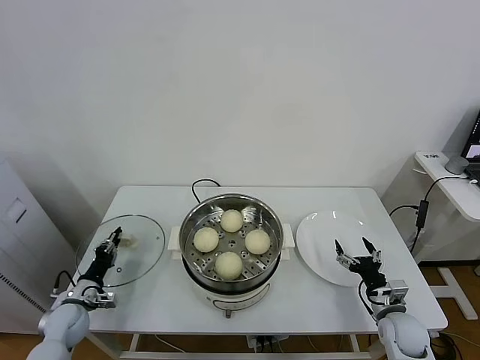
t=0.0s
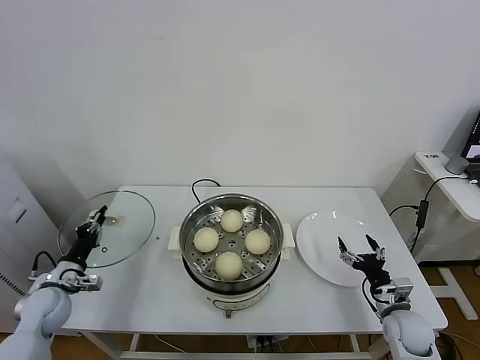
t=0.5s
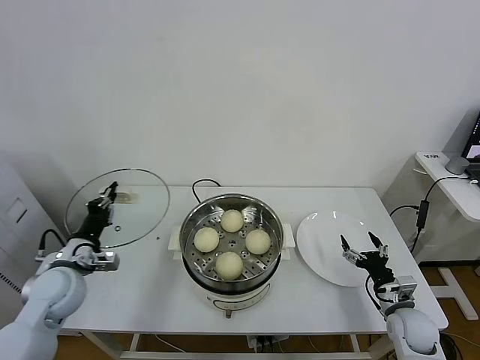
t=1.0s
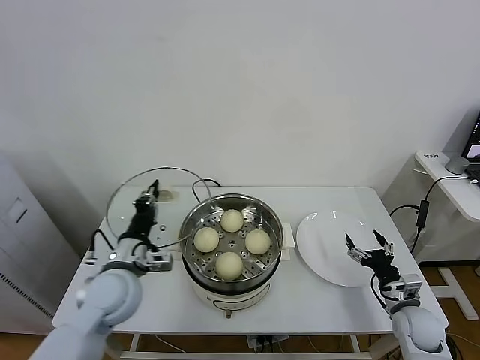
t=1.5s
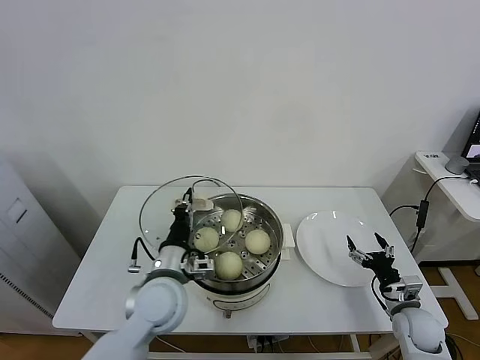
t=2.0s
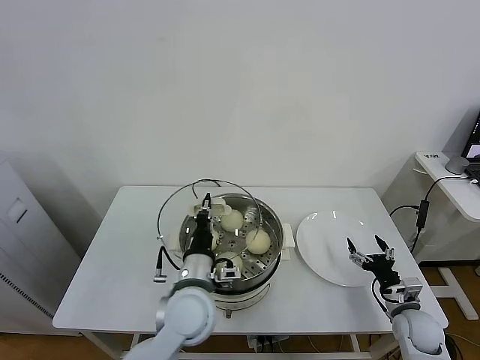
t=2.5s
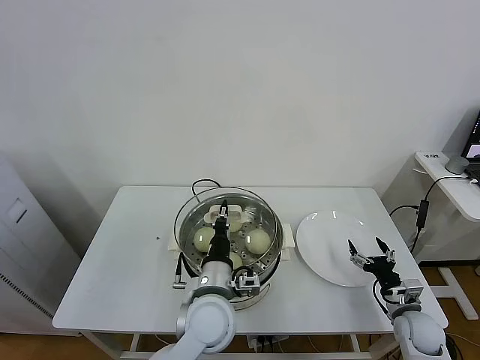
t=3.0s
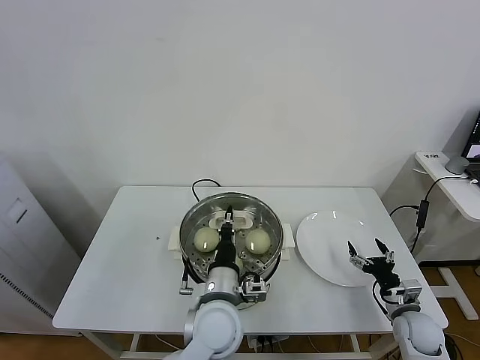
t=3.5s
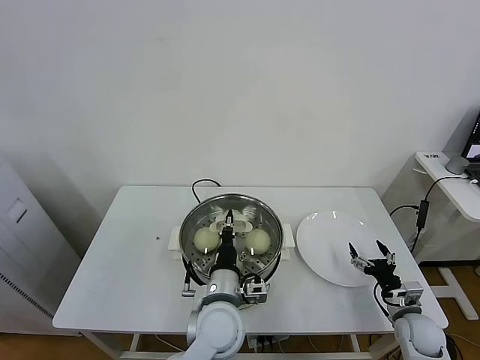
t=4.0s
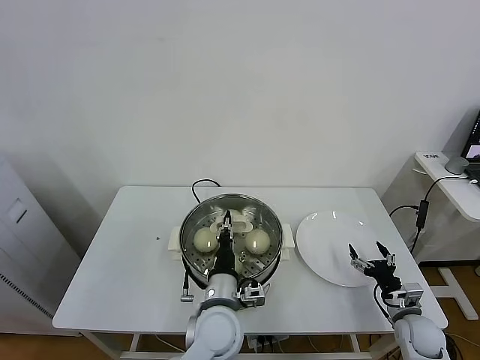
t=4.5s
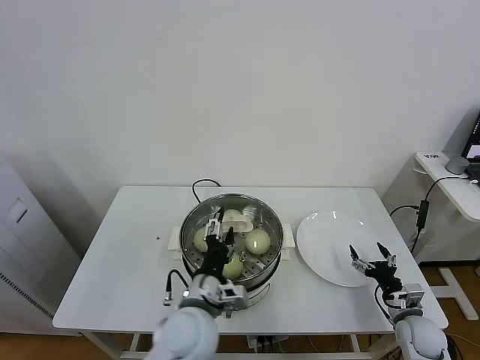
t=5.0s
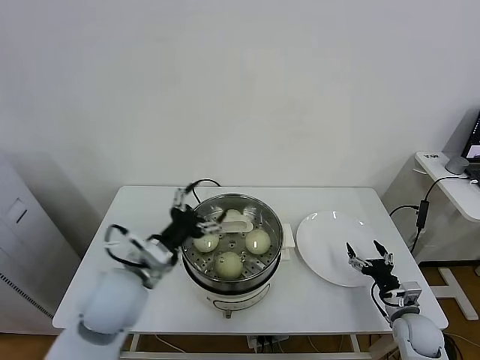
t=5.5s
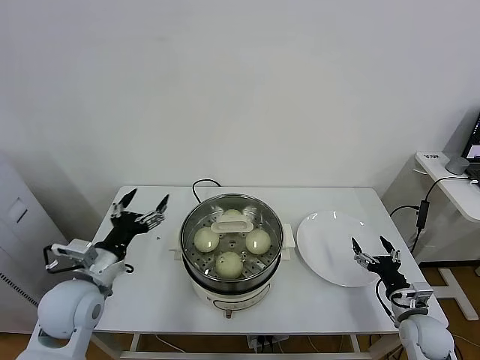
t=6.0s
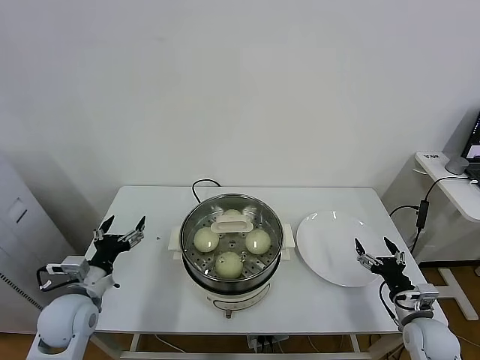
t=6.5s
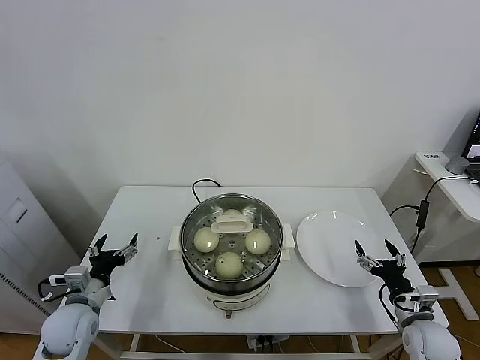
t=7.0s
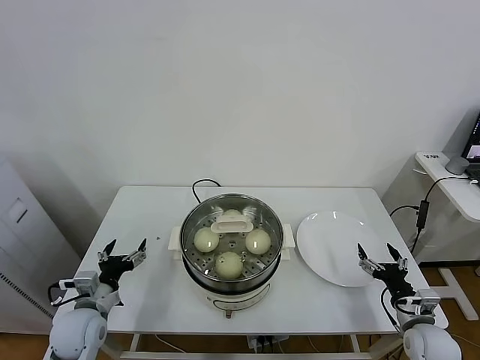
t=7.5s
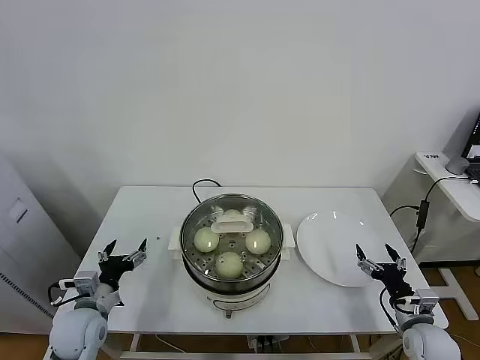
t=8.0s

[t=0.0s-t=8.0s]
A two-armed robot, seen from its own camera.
Task of the whole recording: take steamed baozi put them in steamer.
Step, t=0.5s to t=5.0s: Place the pot lid on the steamer with left gripper.
t=0.0s to t=2.0s: The left gripper moves to the right and upward, approximately 35 cm.
t=2.0s to t=4.0s: The left gripper moves to the right, roughly 10 cm.
t=4.0s to t=6.0s: The left gripper is displaced to the left by roughly 25 cm, and opens.
t=6.0s to t=8.0s: The left gripper travels downward by some 10 cm.

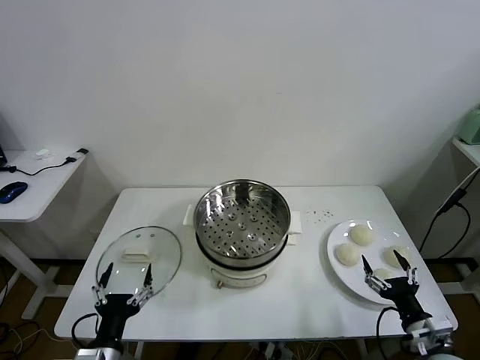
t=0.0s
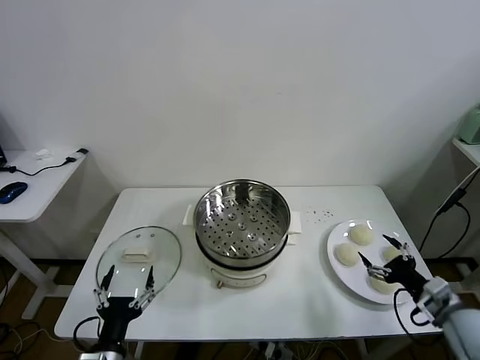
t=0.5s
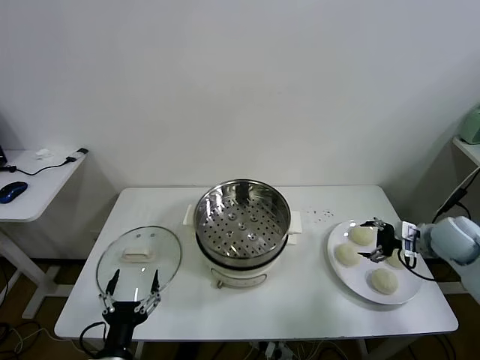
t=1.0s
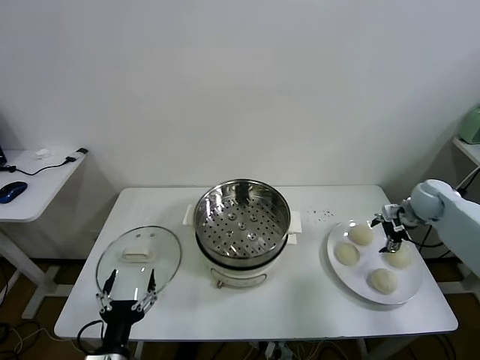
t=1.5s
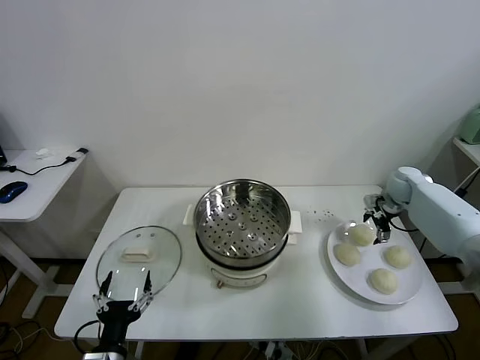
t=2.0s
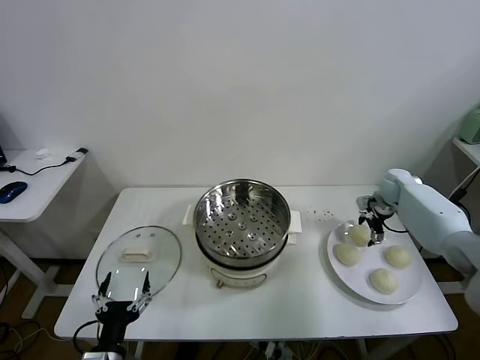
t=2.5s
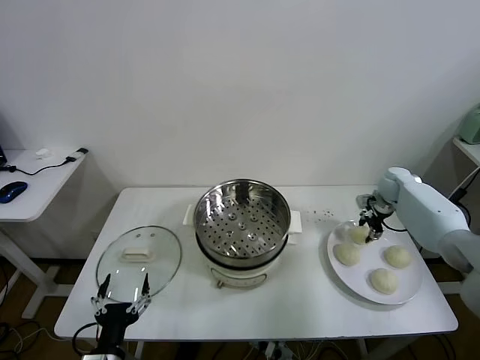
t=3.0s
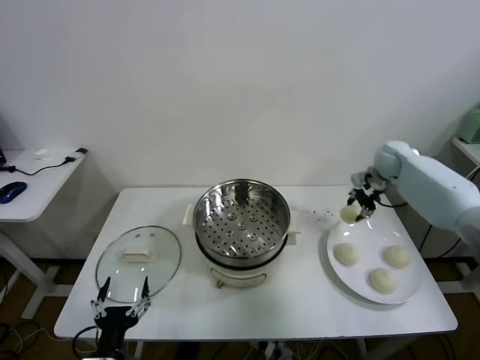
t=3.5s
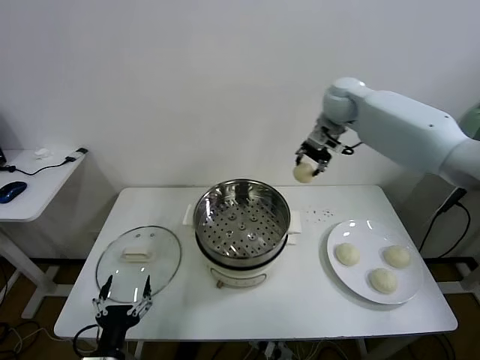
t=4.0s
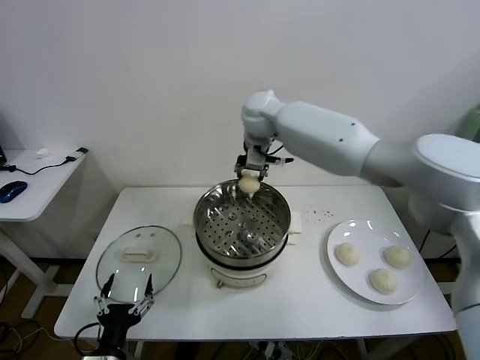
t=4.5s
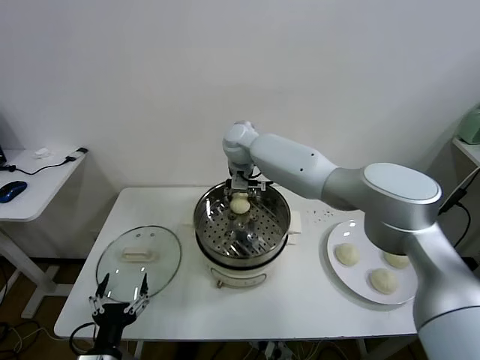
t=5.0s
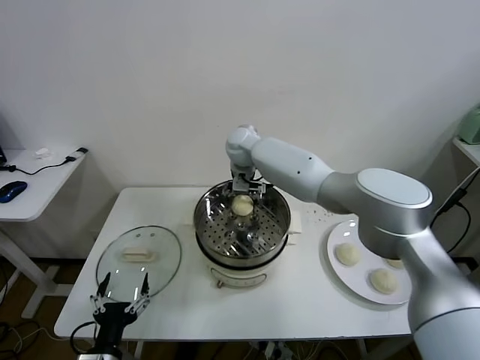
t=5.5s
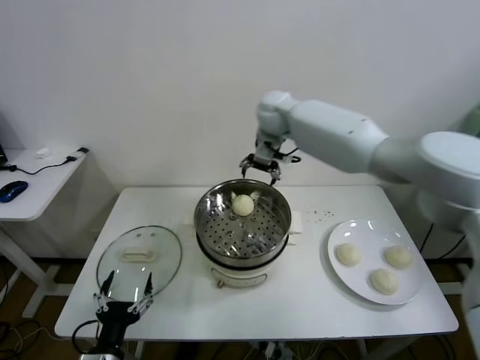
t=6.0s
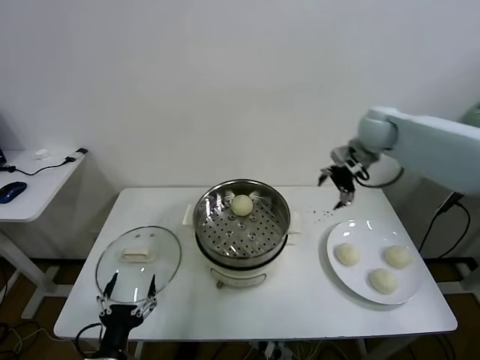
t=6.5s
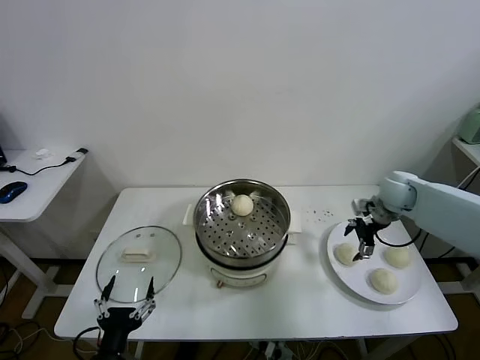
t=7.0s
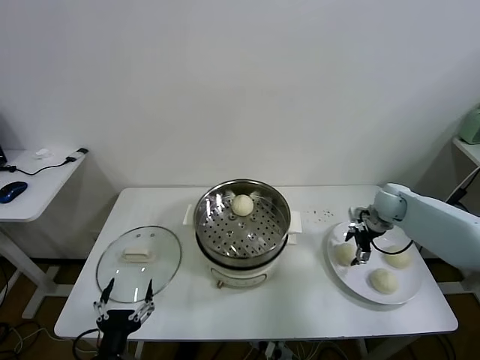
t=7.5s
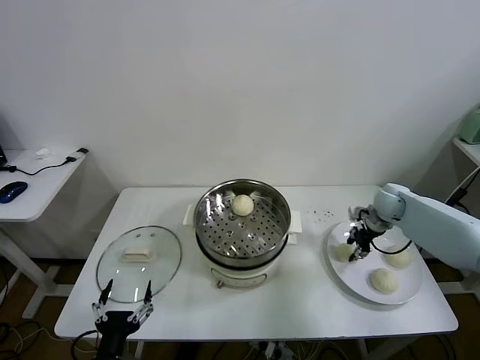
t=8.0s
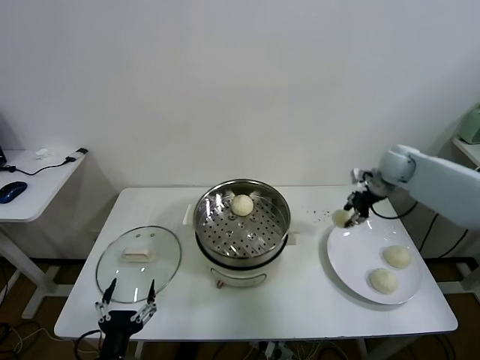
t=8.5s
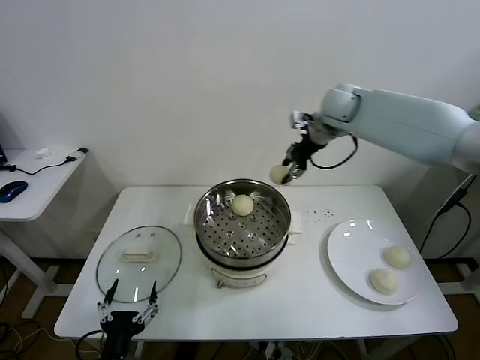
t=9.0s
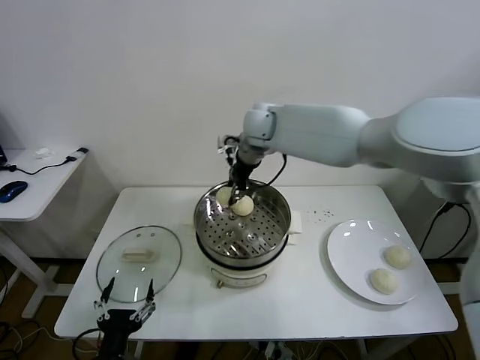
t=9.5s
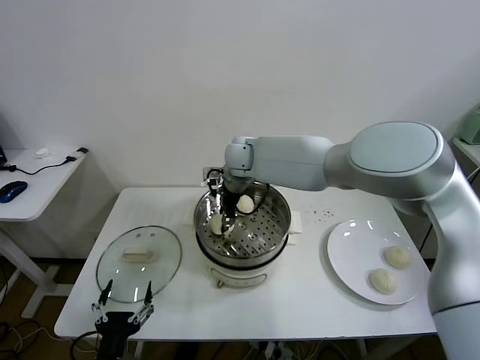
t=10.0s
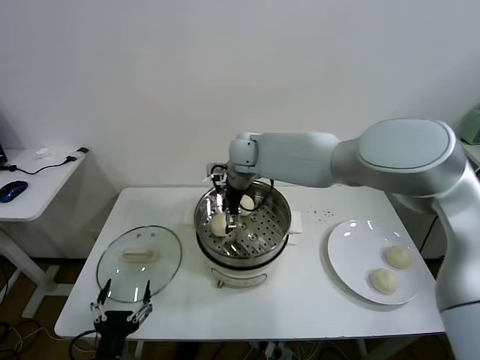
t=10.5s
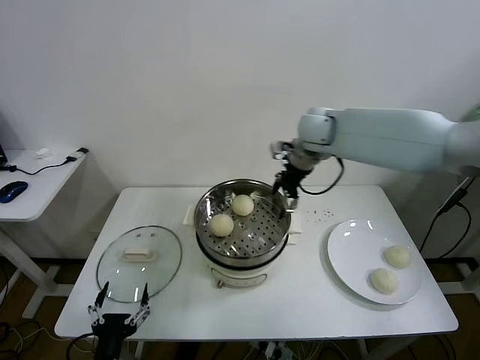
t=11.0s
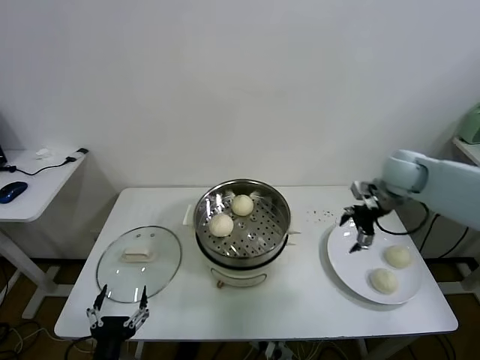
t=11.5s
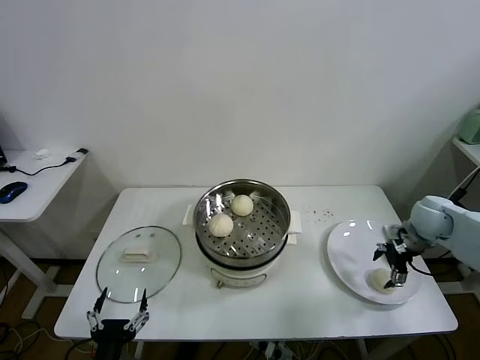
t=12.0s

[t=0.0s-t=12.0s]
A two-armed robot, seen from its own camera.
Task of the whole recording: take steamed baozi put them in steamer.
Step, t=0.0s to t=2.5s: Grasp the baozi in the plate with right gripper.
Step, t=3.0s to t=5.5s: Place the baozi on the steamer with right gripper.
Step, t=6.0s to t=7.5s: Grasp the baozi in the plate with right gripper.
Step, t=8.0s to t=10.0s: Place the baozi on the steamer with right gripper.
t=2.0s to t=4.0s: The right gripper moves to the left and upward, approximately 35 cm, and closes its fingers.
t=4.0s to t=6.0s: The right gripper reaches some 20 cm to the left, then returns, and opens up.
t=6.0s to t=8.0s: The right gripper travels to the right and downward by some 35 cm, and closes its fingers.
t=8.0s to t=10.0s: The right gripper shifts roughly 40 cm to the left.
t=10.0s to t=12.0s: The right gripper travels to the right by roughly 50 cm, and opens up.

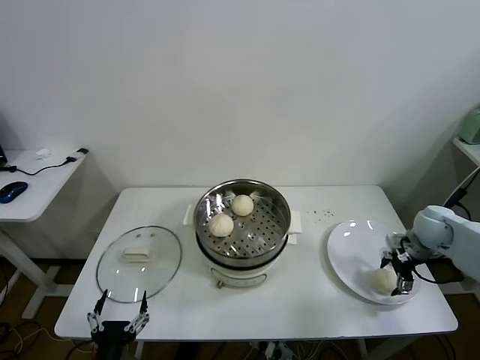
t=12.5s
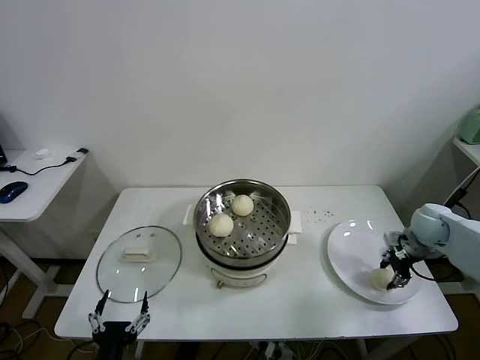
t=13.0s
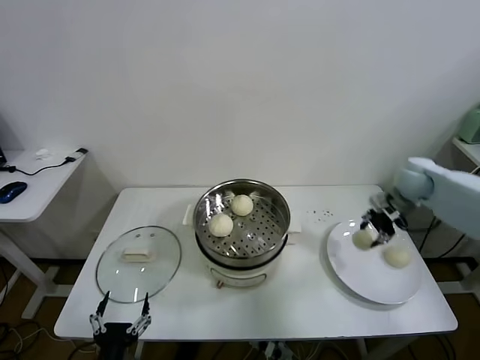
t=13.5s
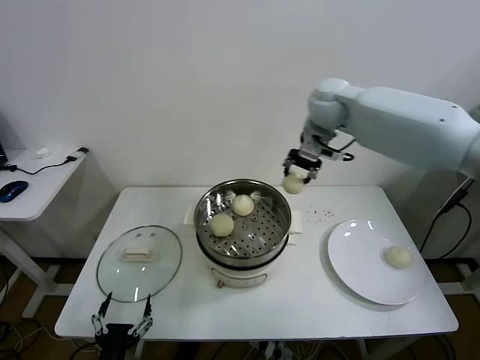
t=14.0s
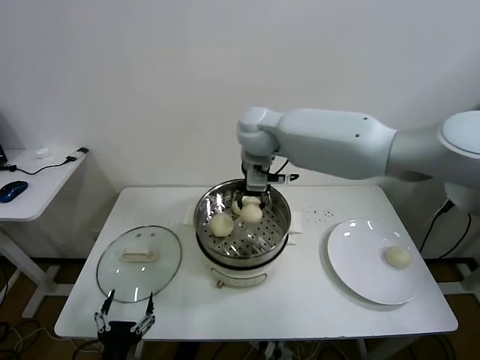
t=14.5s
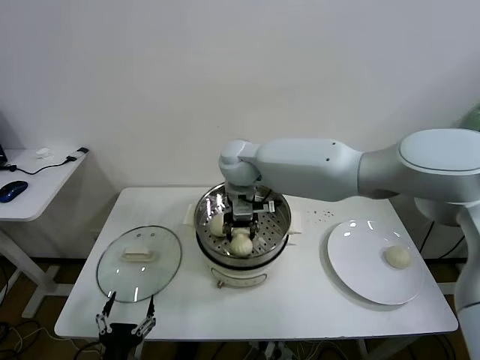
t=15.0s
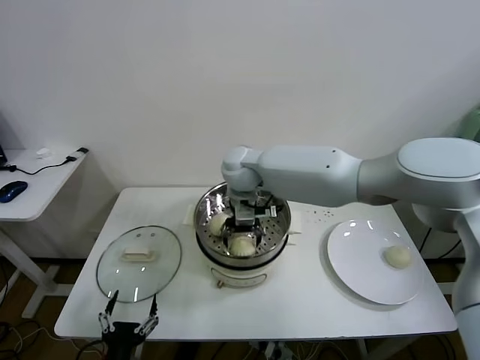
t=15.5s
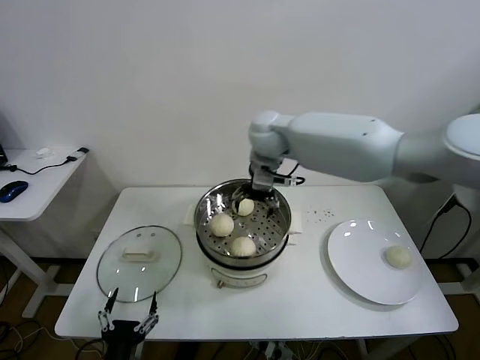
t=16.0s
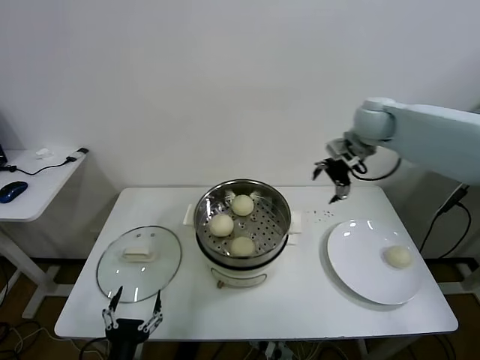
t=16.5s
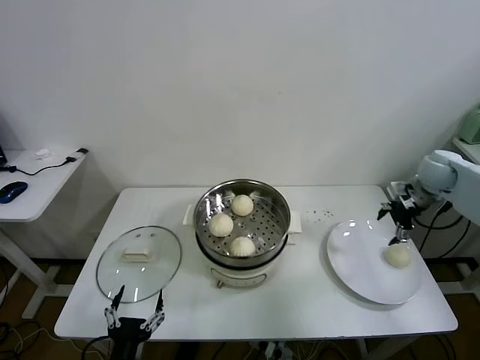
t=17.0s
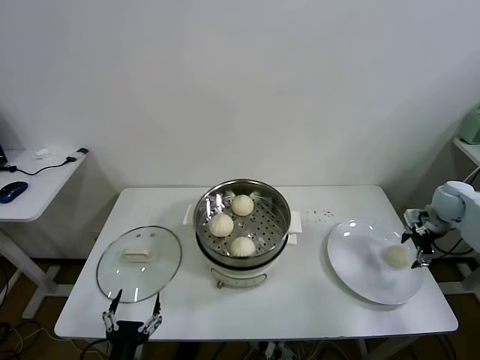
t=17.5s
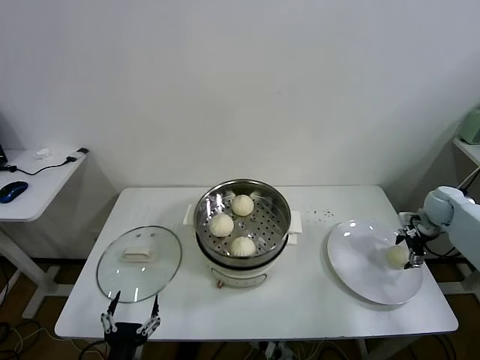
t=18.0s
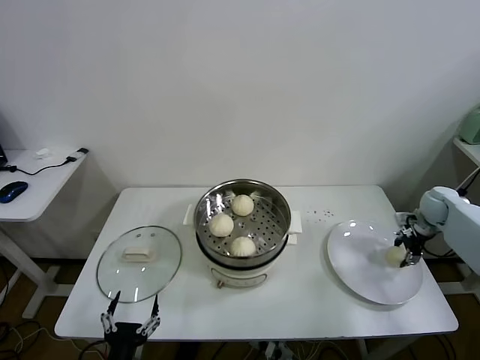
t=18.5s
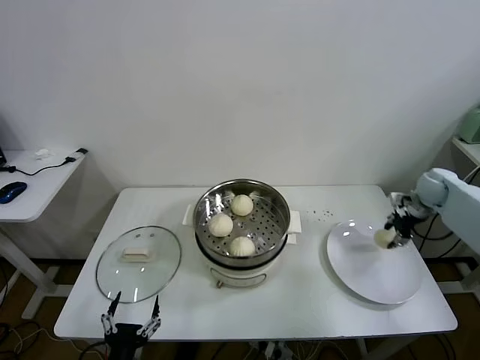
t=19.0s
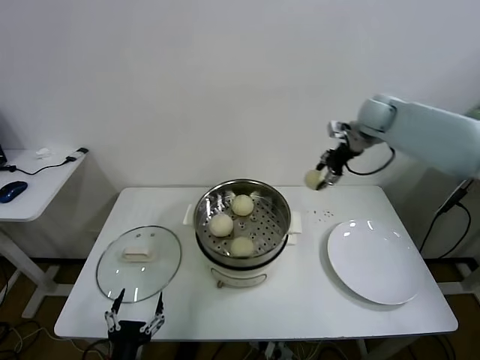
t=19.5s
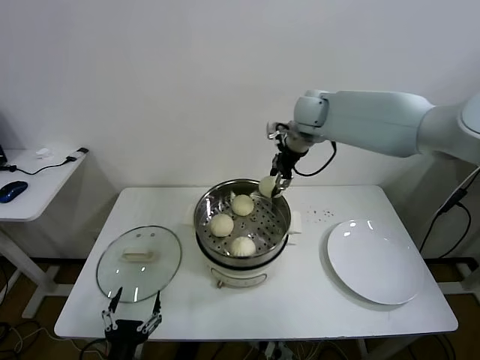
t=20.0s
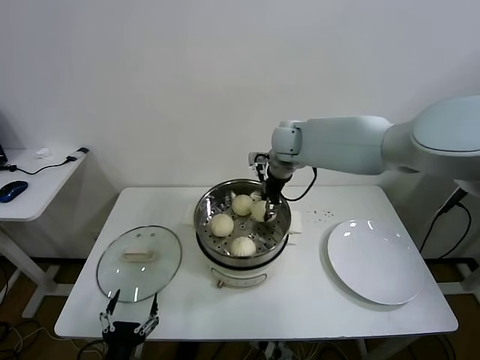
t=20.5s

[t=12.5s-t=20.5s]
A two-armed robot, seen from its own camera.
Task of the whole recording: take steamed baozi put them in steamer.
Step, t=13.0s to t=15.5s: Place the baozi on the steamer with right gripper.
Step, t=16.0s to t=18.0s: Grasp the baozi in the plate with right gripper.
t=12.5s to t=14.5s: The right gripper goes about 50 cm to the left and upward, and closes its fingers.
t=14.5s to t=16.5s: The right gripper heads to the right, covering some 25 cm, and opens its fingers.
t=16.5s to t=18.5s: The right gripper shifts about 30 cm downward and to the right, and closes up.
t=18.5s to t=20.5s: The right gripper moves to the left and upward, some 40 cm.
